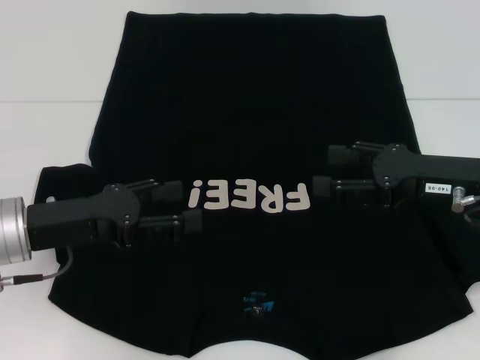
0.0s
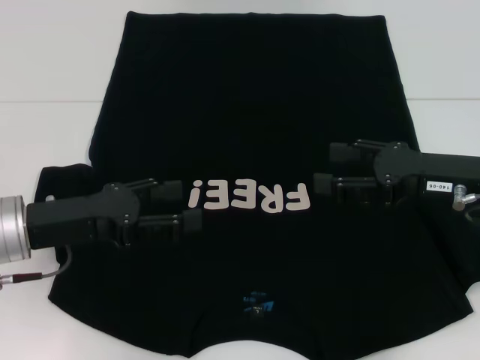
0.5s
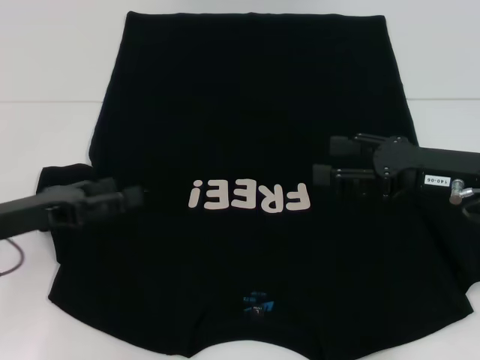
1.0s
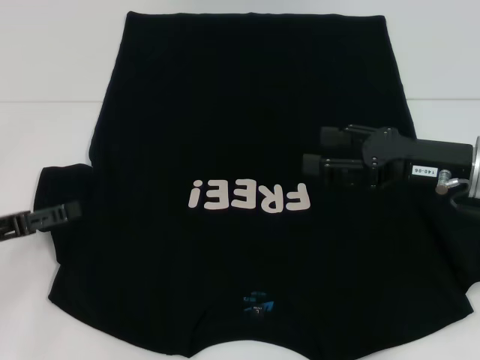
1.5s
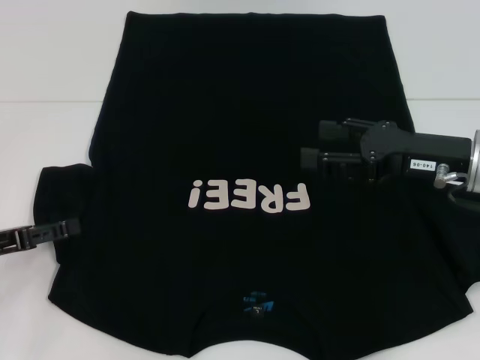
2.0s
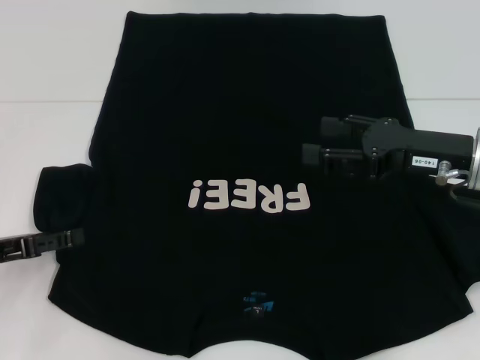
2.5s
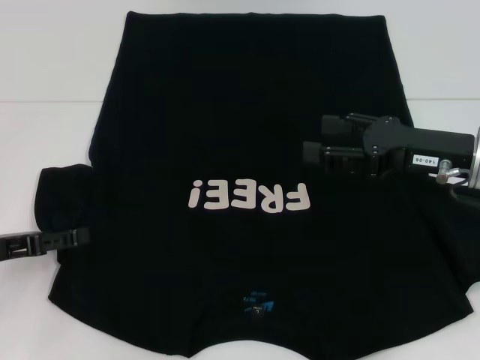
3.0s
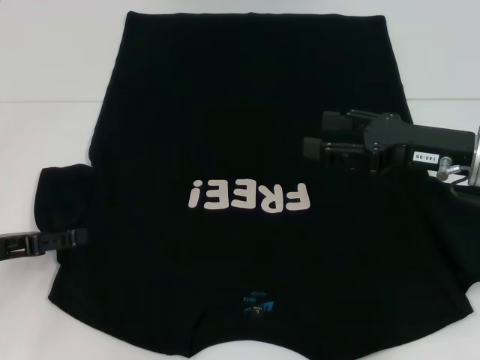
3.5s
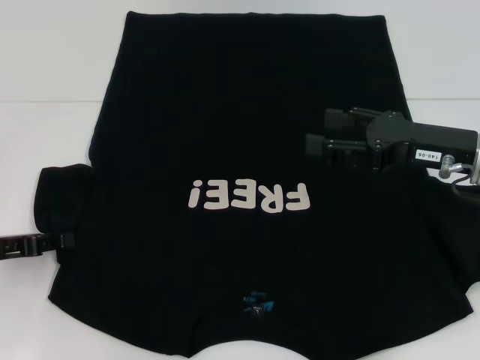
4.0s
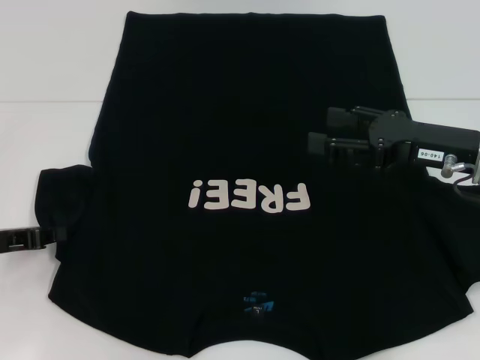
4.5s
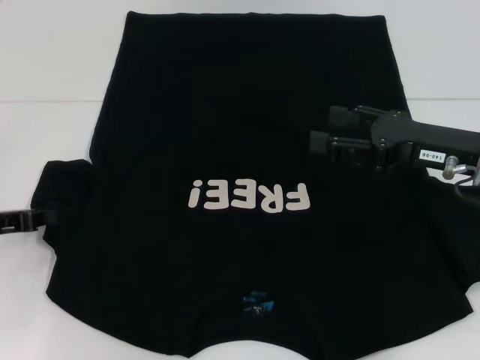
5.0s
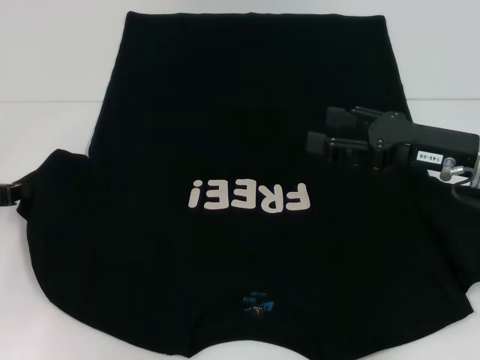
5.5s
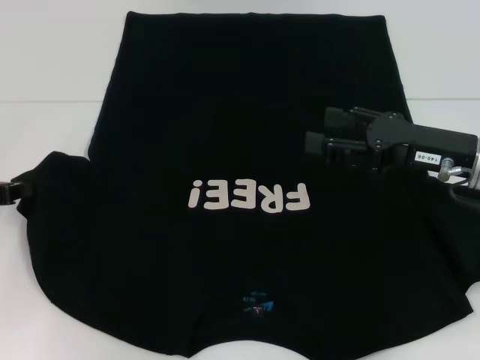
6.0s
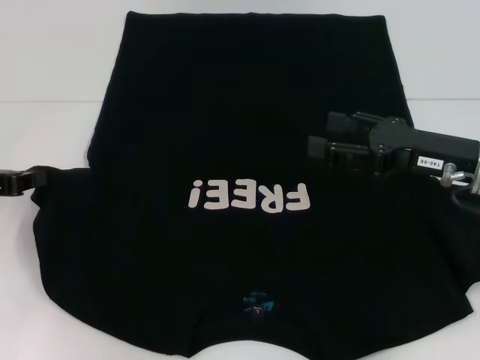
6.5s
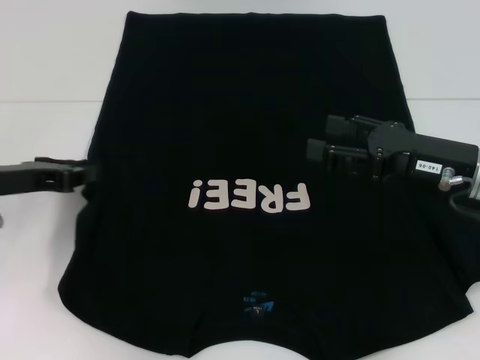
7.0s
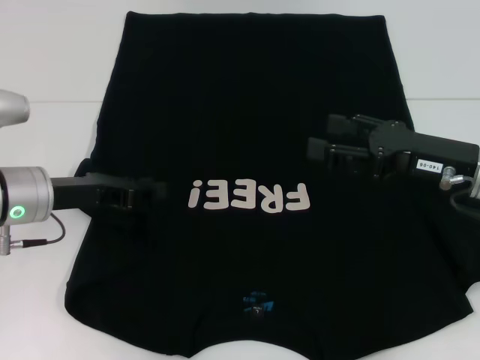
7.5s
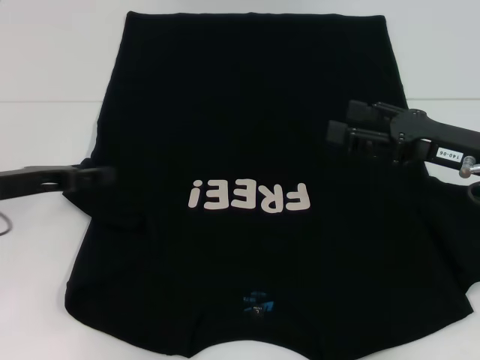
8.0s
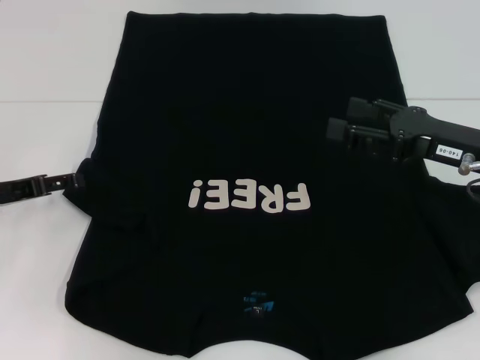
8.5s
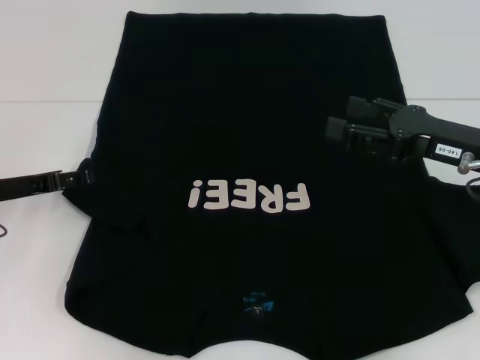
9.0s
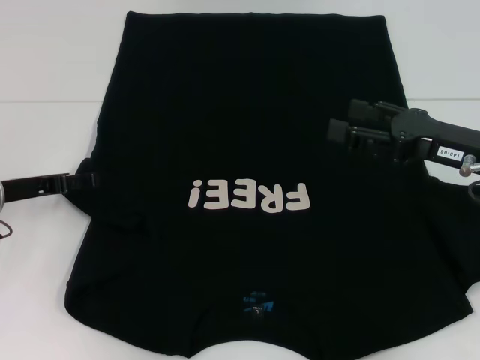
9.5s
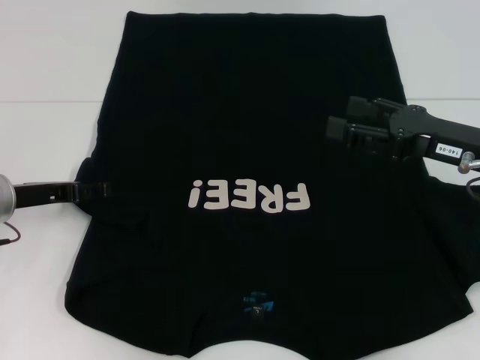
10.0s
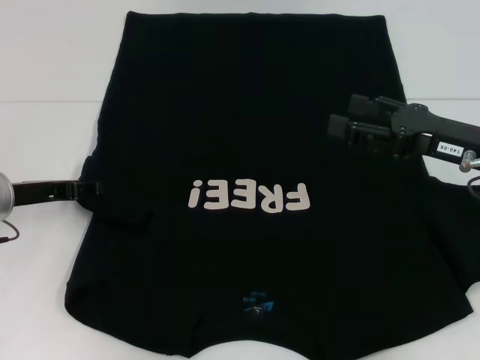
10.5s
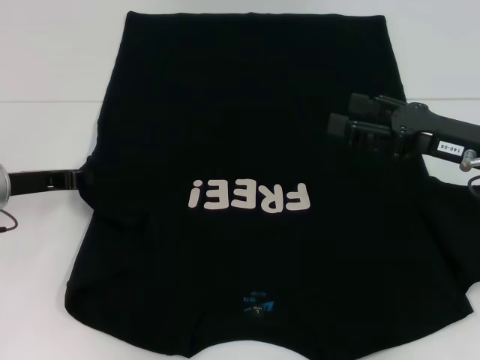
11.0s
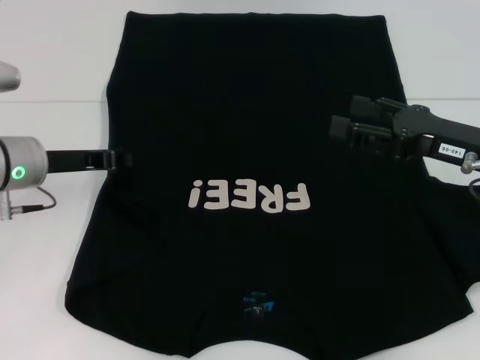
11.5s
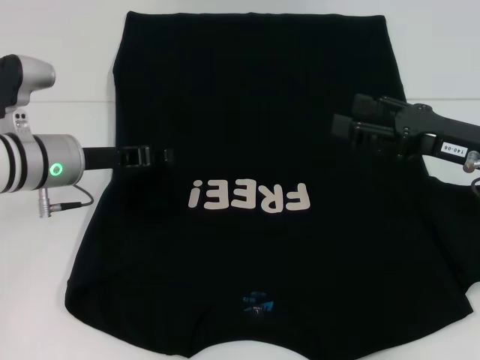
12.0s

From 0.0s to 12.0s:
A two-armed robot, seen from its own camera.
From 0.0s to 2.0s: The left gripper travels to the left by some 10 cm.
From 2.0s to 4.0s: The grippers stay close to where they were, moving slightly.
From 4.0s to 6.0s: The left gripper moves roughly 5 cm, and closes its fingers.
From 6.0s to 8.0s: The left gripper moves to the right, approximately 5 cm, and opens up.
From 8.0s to 10.0s: The left gripper opens.
From 10.0s to 12.0s: The left gripper goes approximately 5 cm to the right, and closes up.

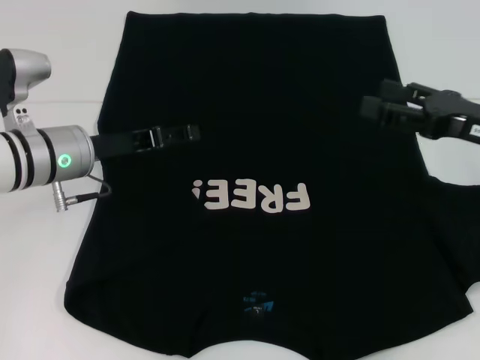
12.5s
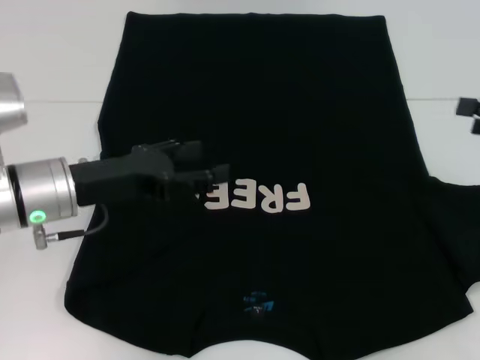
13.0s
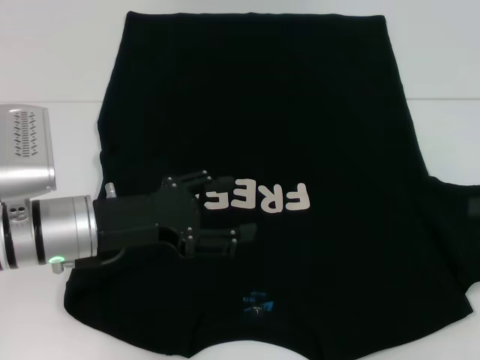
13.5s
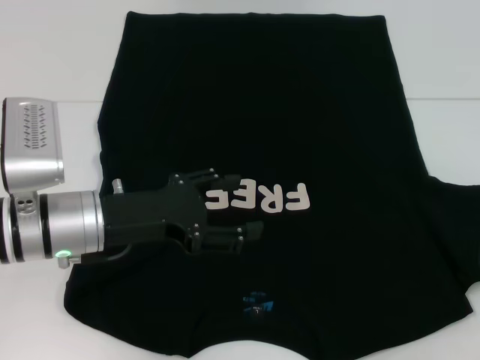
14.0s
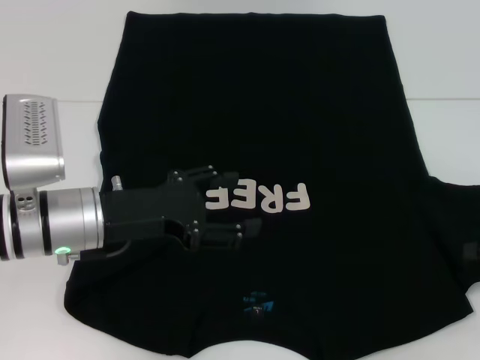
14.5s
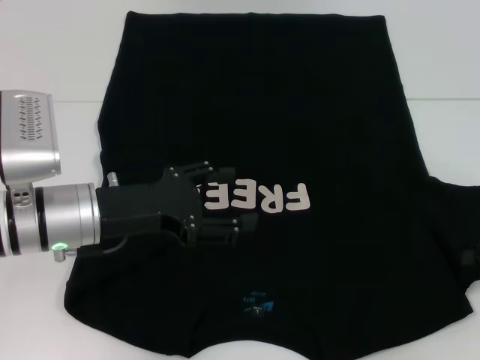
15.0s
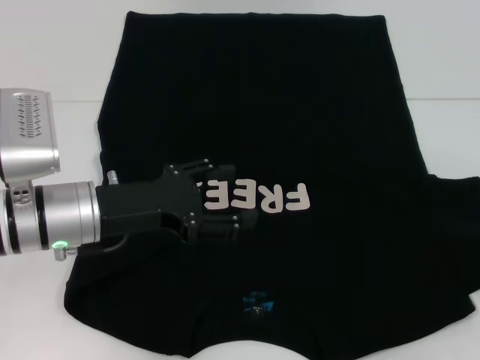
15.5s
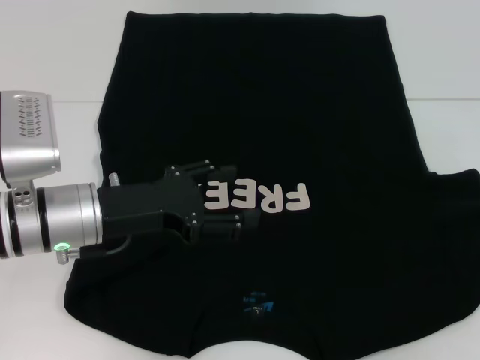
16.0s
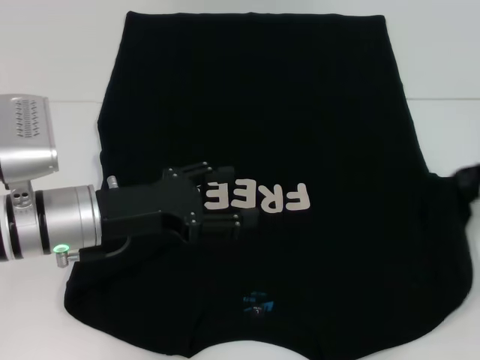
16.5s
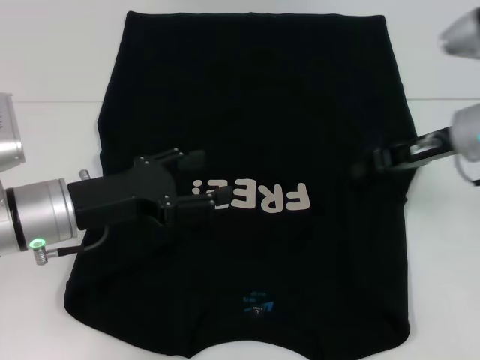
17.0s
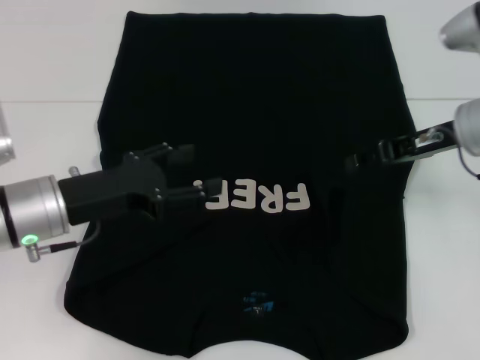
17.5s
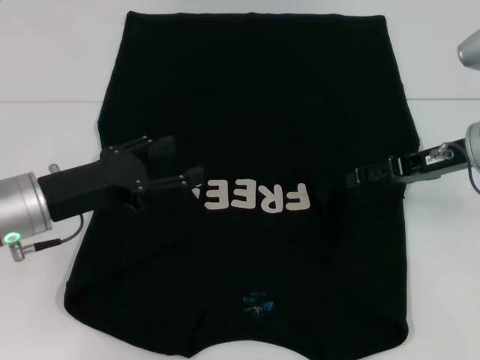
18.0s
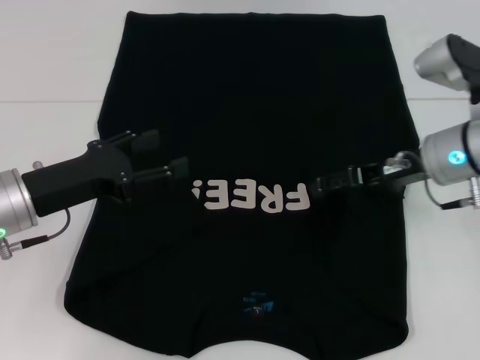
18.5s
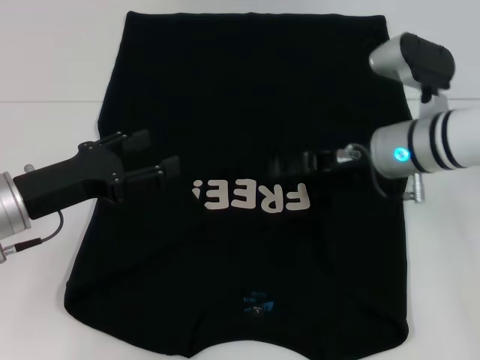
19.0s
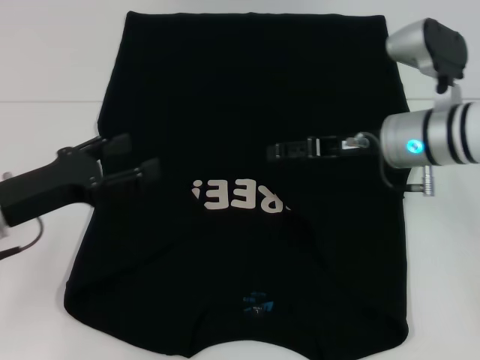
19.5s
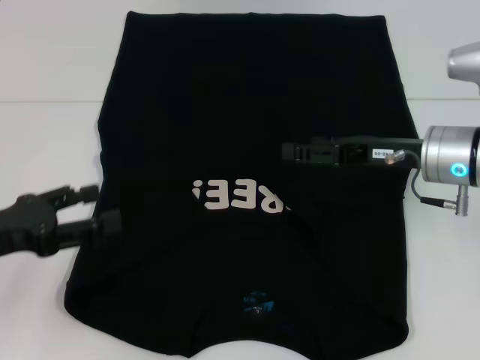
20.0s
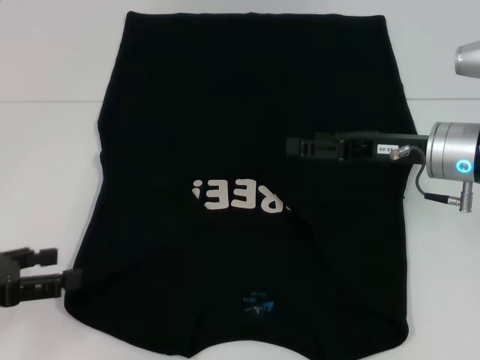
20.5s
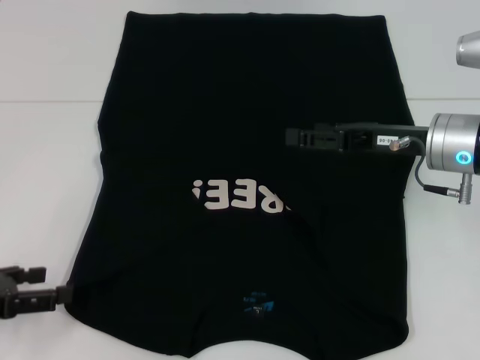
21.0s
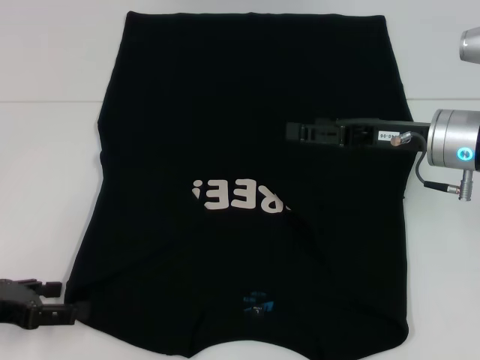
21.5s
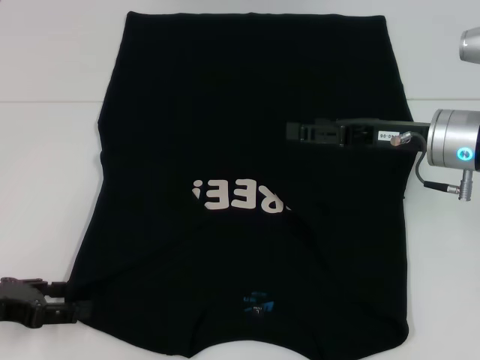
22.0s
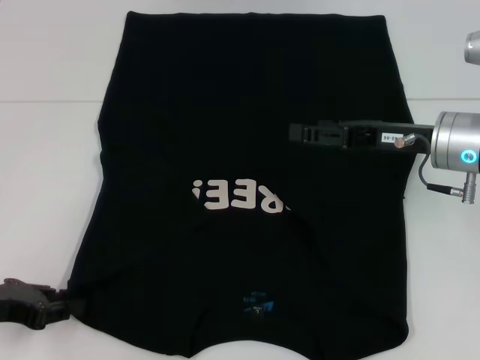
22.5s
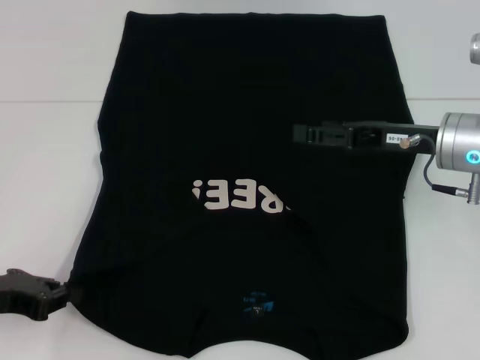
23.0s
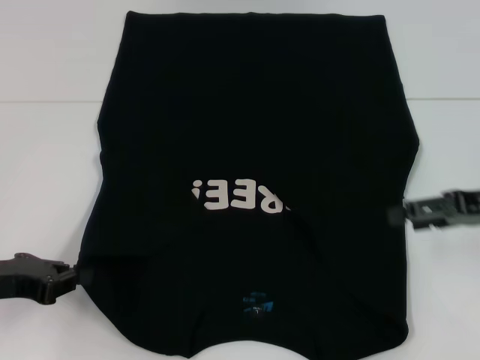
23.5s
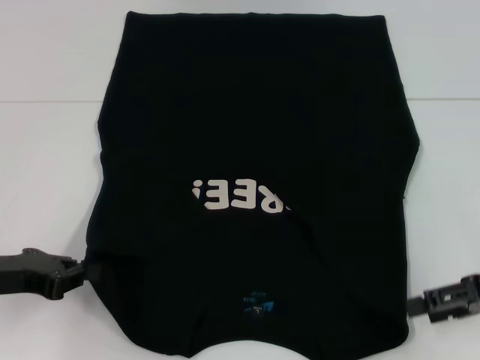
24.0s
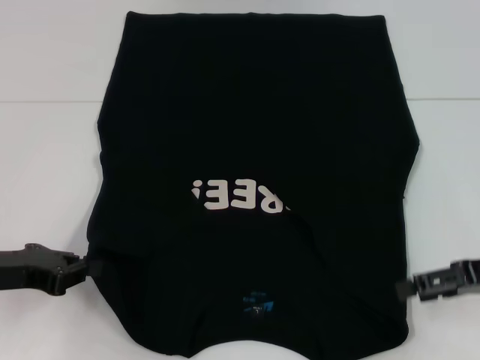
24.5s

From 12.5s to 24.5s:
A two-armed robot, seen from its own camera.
Step, from 12.5s to 17.5s: Fold the bottom right sleeve with your right hand.
Step, from 18.0s to 23.0s: Grab the bottom left corner with your left hand.
From 12.5s to 14.5s: The left gripper travels backward by about 5 cm, while the right gripper goes about 10 cm to the right.
From 14.5s to 16.5s: The right gripper is displaced forward by approximately 5 cm, and closes its fingers.
From 16.5s to 18.5s: The right gripper heads to the left, covering roughly 15 cm, and opens up. The left gripper is displaced to the left by roughly 5 cm.
From 18.5s to 20.5s: The left gripper heads to the left and backward, covering approximately 10 cm.
From 20.5s to 22.5s: The left gripper closes up.
From 22.5s to 24.5s: The left gripper closes up. The right gripper moves to the right and backward, about 15 cm.

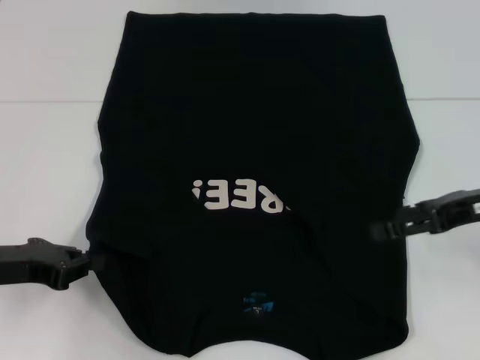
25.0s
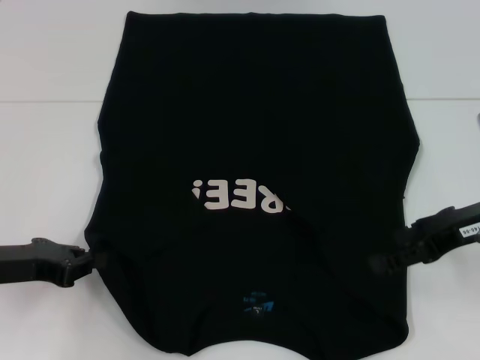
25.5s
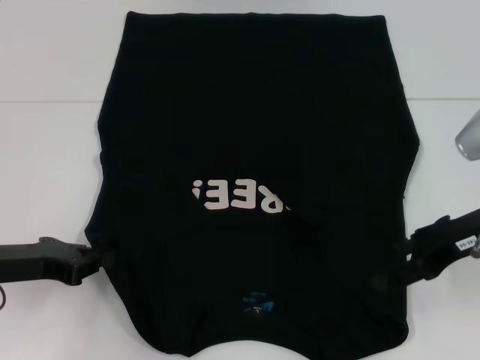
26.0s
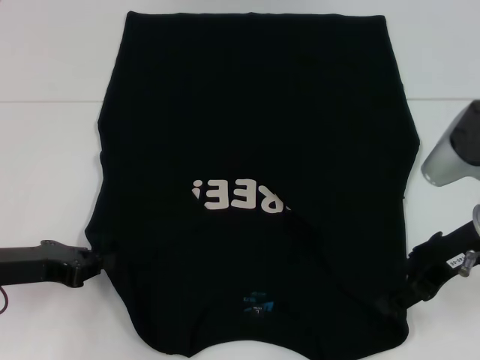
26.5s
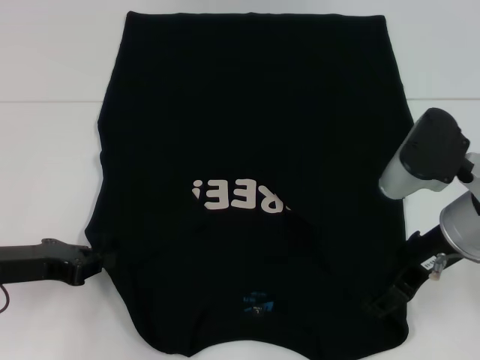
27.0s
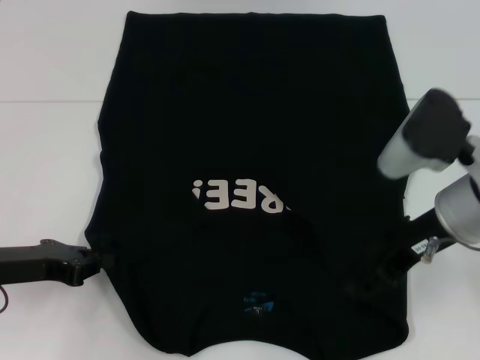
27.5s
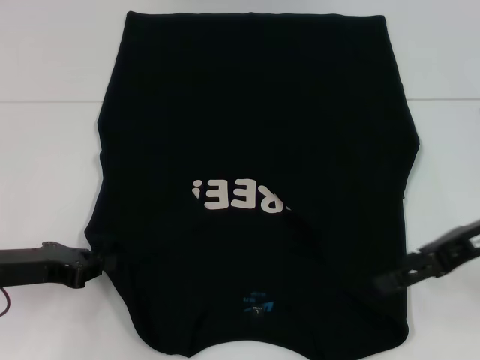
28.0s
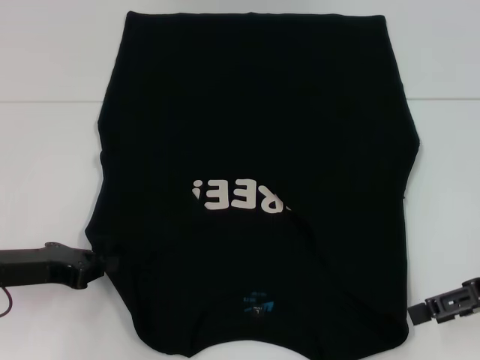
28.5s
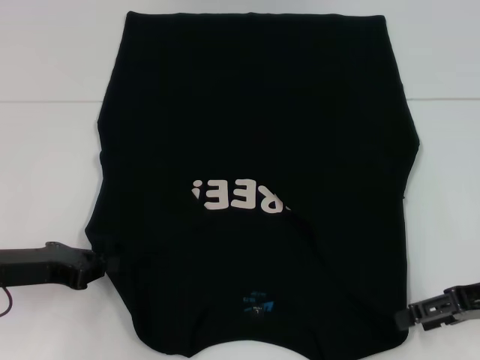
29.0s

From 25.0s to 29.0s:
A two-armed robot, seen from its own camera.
From 25.0s to 27.0s: The right gripper goes approximately 10 cm to the left.
From 27.0s to 29.0s: The right gripper is displaced to the right by some 10 cm.
